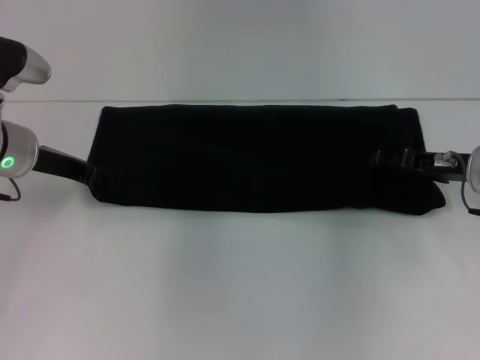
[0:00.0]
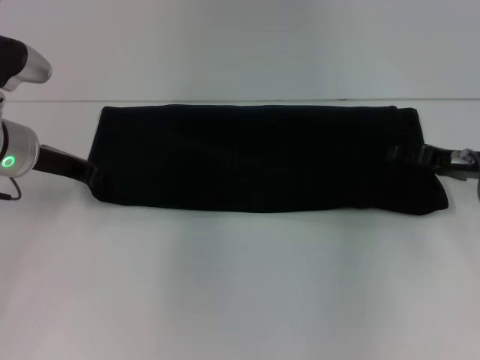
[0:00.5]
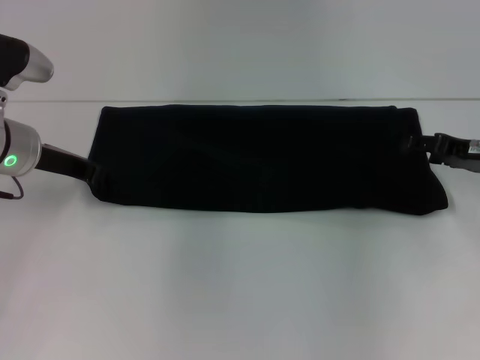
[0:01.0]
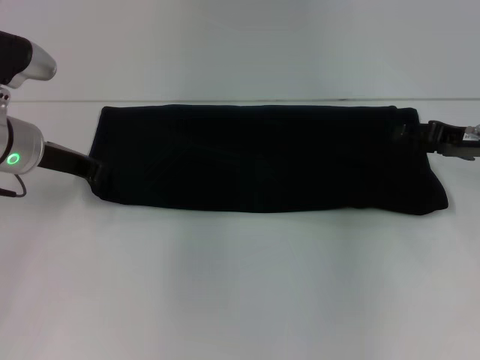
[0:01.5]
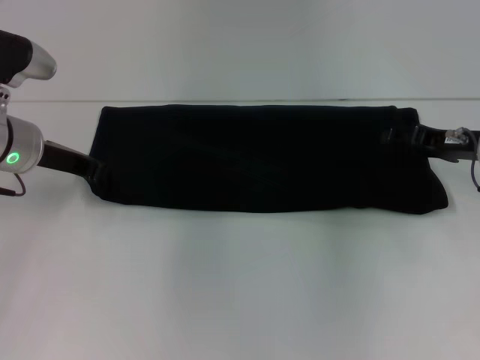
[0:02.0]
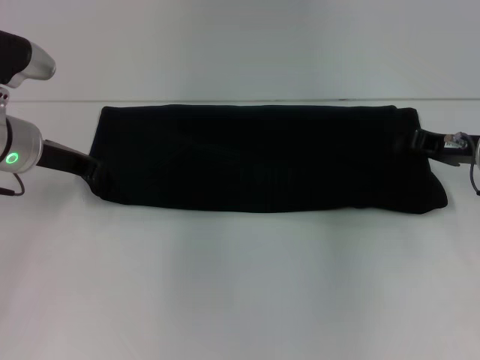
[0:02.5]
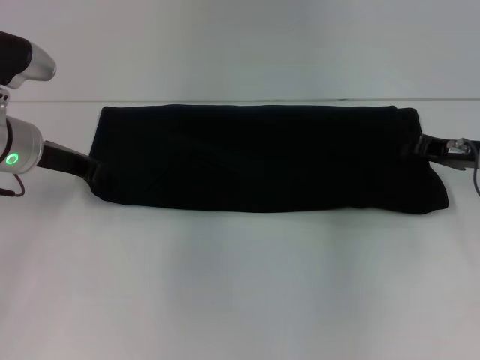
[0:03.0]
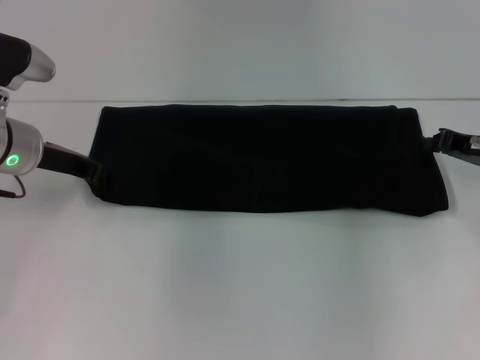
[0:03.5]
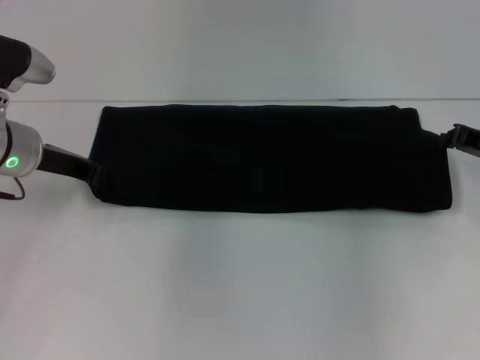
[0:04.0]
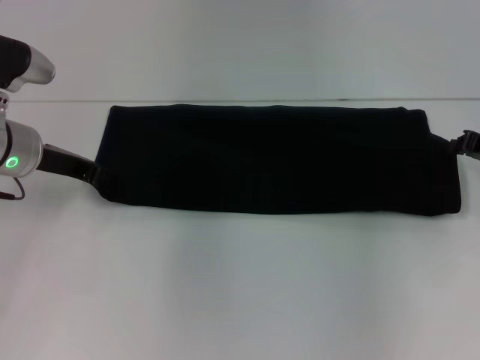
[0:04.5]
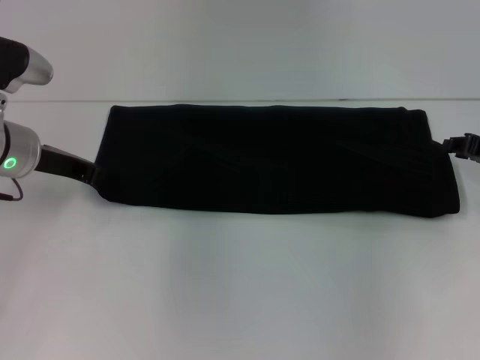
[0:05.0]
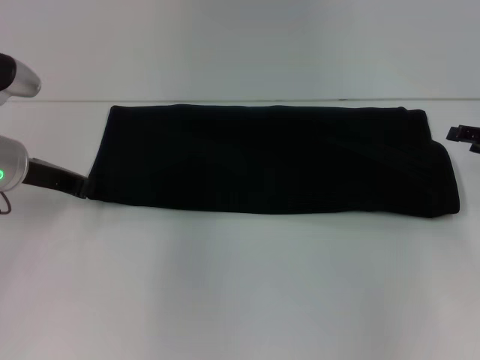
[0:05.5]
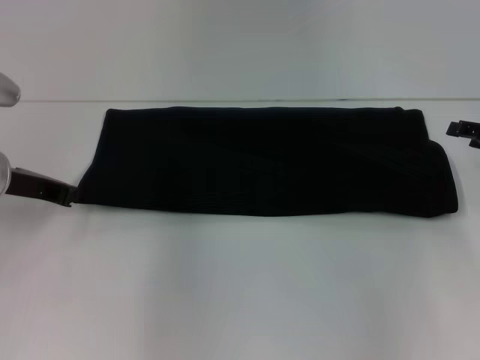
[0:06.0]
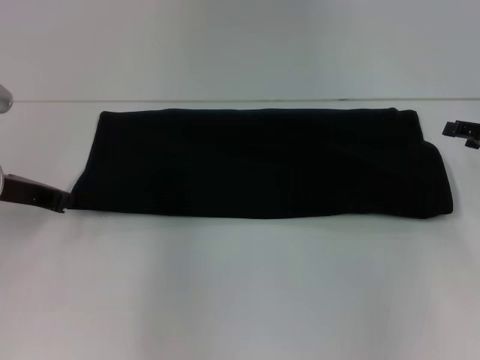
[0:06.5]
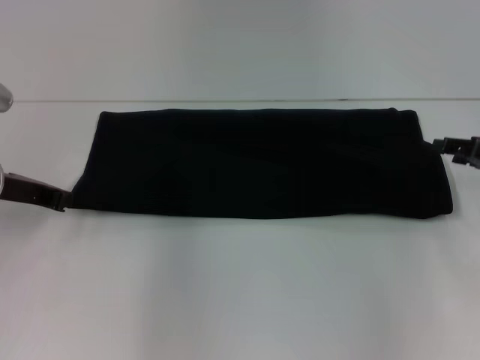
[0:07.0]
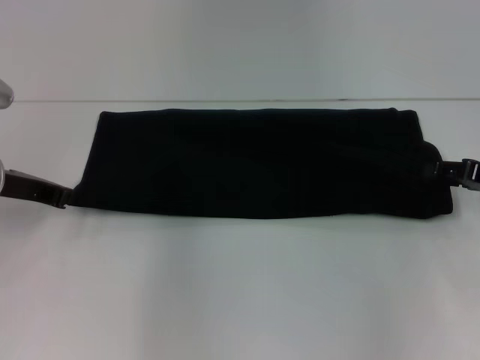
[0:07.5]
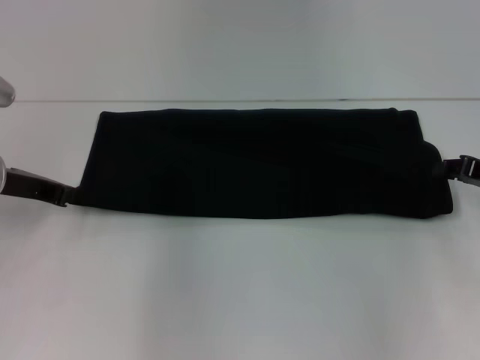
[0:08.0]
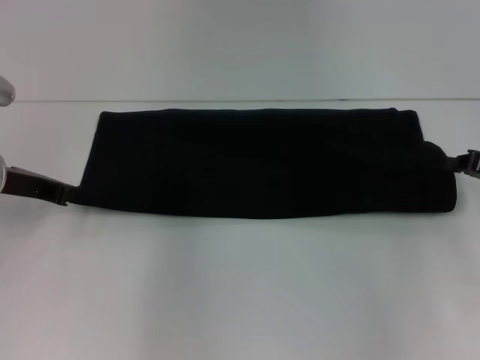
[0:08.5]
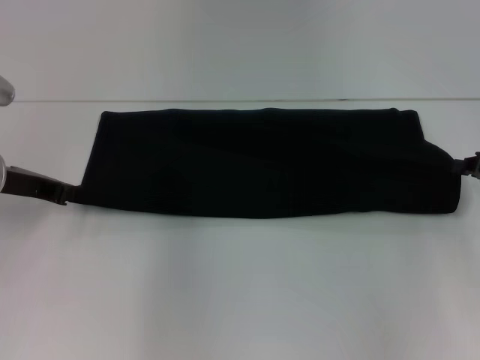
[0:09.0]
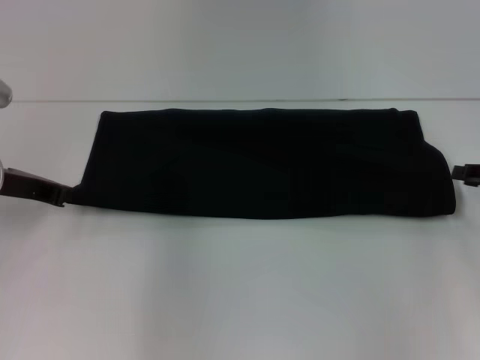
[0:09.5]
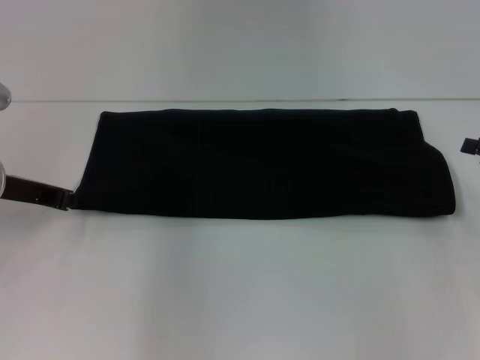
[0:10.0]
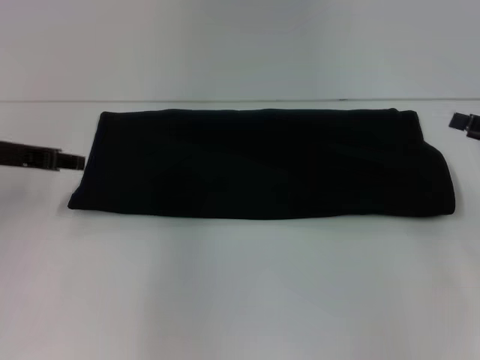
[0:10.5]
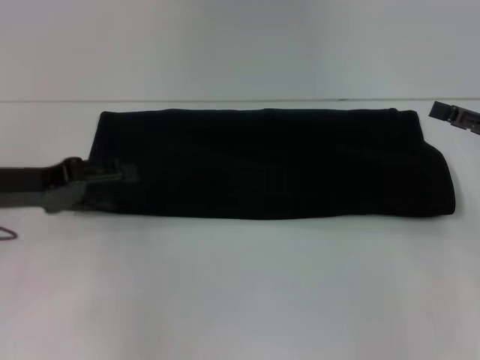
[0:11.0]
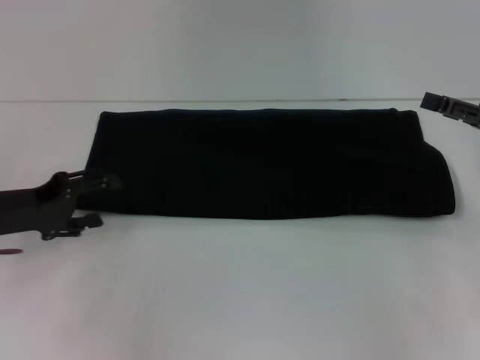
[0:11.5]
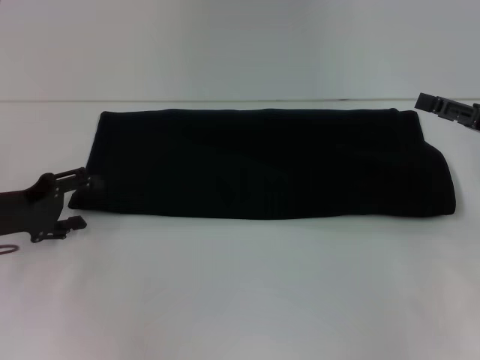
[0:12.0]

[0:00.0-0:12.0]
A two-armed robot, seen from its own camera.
0:00.0 to 0:02.0: The grippers make only small movements.
0:02.0 to 0:04.0: The right gripper closes up.
0:04.0 to 0:06.0: The right gripper opens its fingers.
0:06.0 to 0:08.0: There are only small adjustments of the grippers.
0:08.0 to 0:10.0: The right gripper ends up some 5 cm from where it was, and closes, then opens again.
0:10.0 to 0:12.0: The right gripper opens. The left gripper ends up roughly 5 cm from where it was, and opens its fingers.

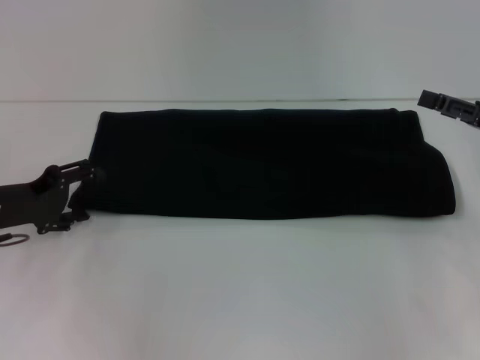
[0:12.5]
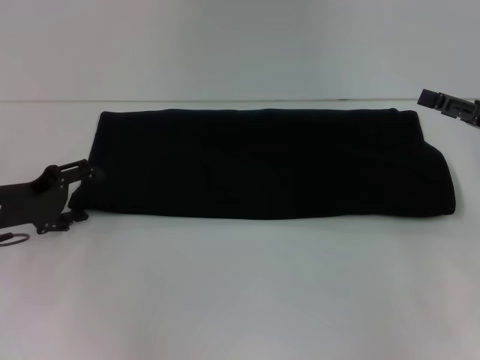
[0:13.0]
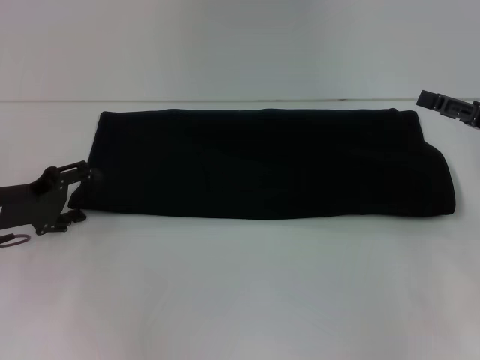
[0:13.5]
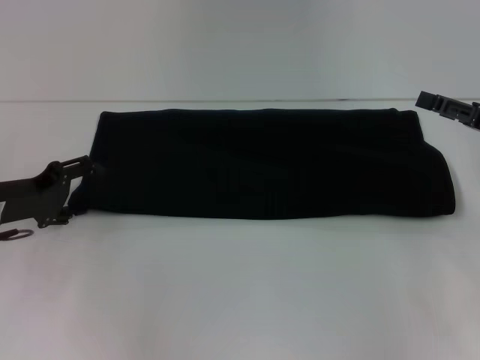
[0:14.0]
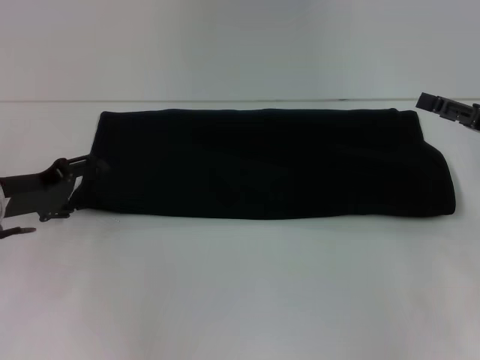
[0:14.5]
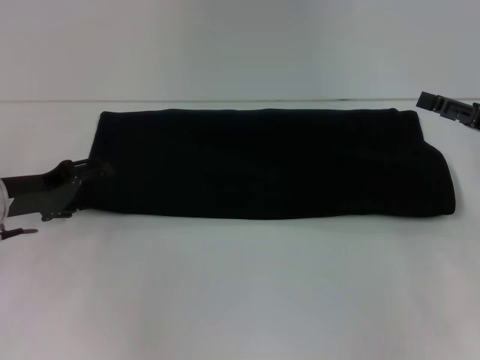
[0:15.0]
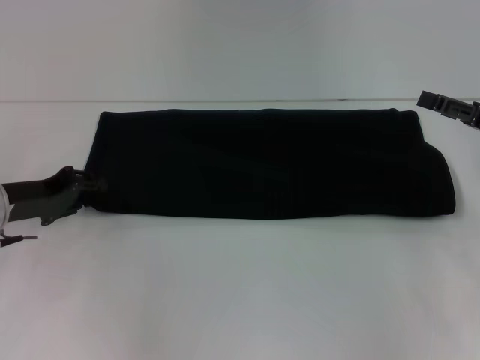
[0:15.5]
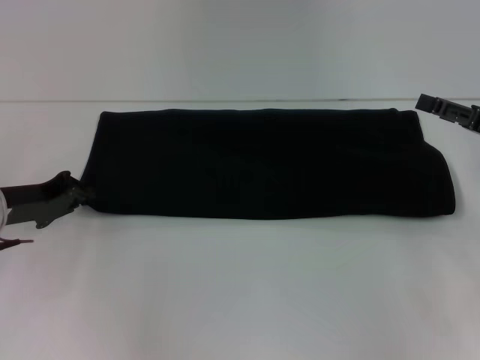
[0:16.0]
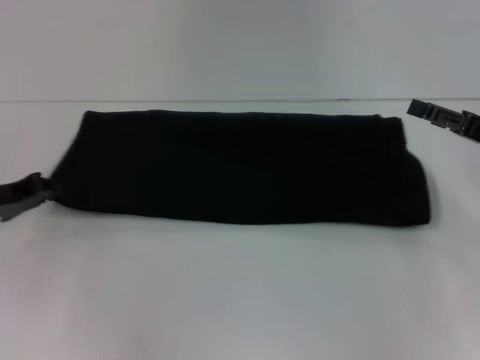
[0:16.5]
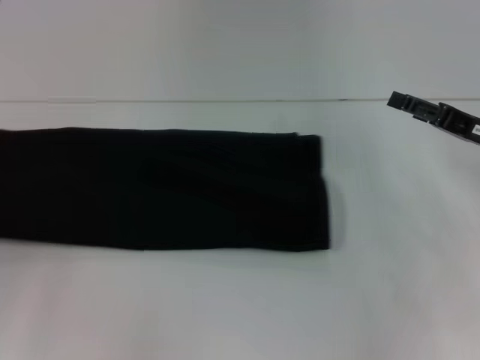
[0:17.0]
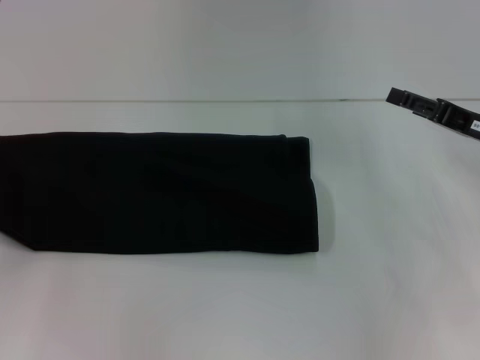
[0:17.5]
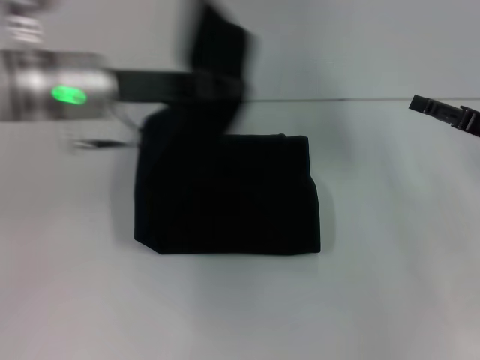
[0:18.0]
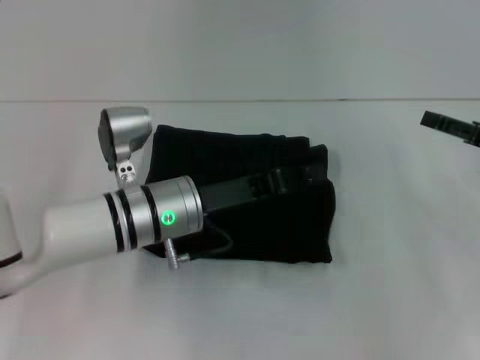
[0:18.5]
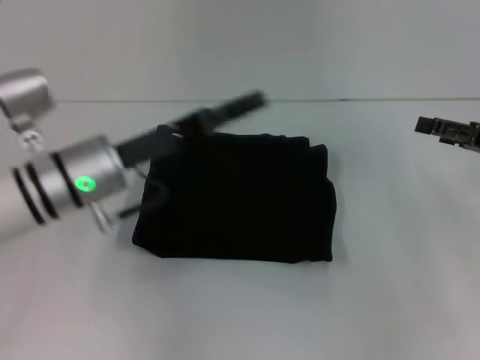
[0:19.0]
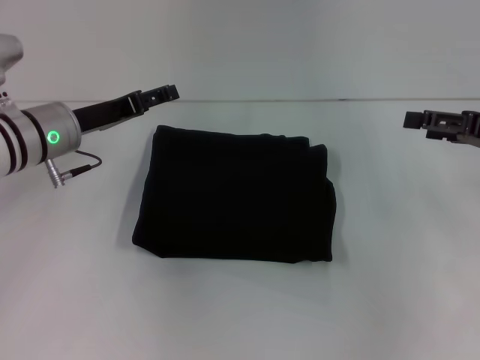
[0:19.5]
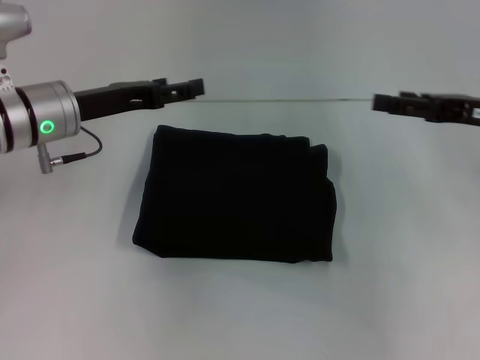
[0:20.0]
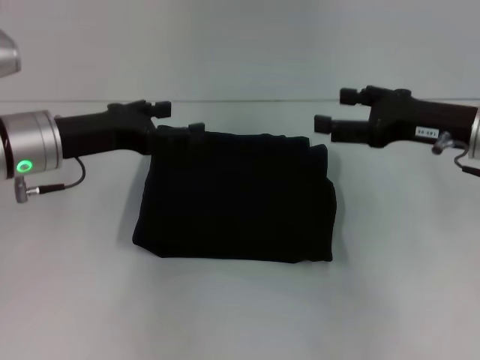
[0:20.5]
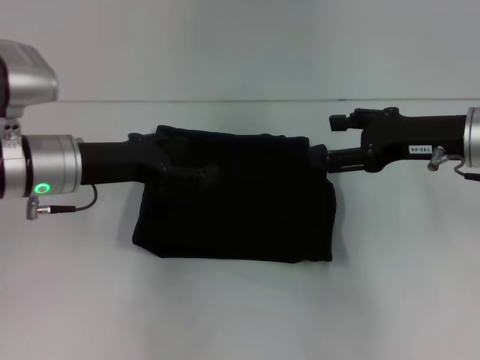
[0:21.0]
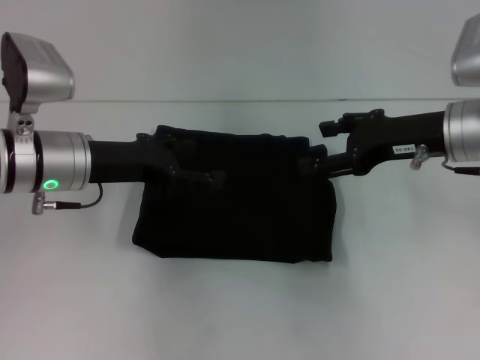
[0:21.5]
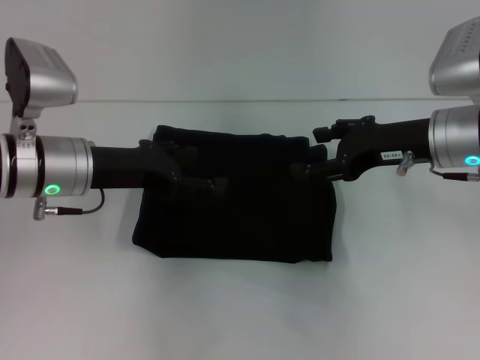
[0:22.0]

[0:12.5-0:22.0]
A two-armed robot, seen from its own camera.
Step, 0:12.5 to 0:18.5: Fold the clothes with your left hand.
0:12.5 to 0:14.5: The grippers move only a little.
0:14.5 to 0:16.5: The left gripper closes up.
0:16.5 to 0:18.0: The left gripper heads to the right and upward, covering approximately 20 cm.
0:18.0 to 0:20.0: The left gripper opens. Meanwhile the right gripper changes place by about 5 cm.
0:20.0 to 0:22.0: The right gripper heads to the left, covering approximately 10 cm.

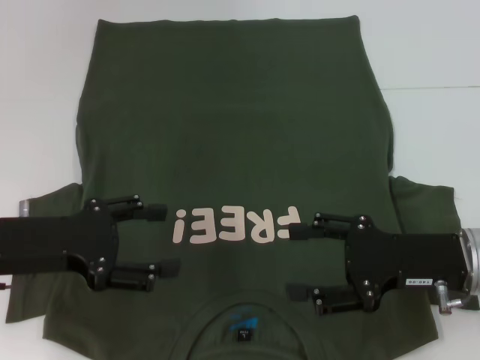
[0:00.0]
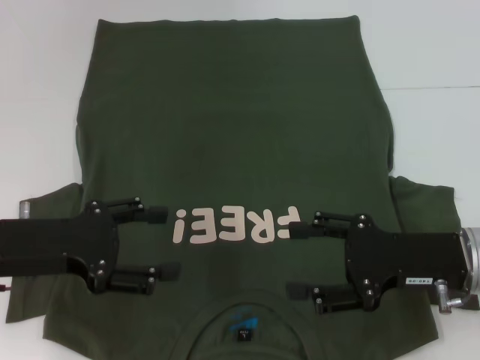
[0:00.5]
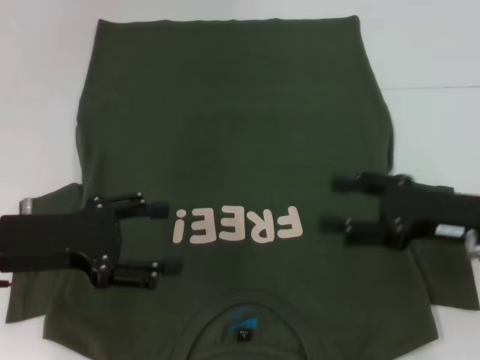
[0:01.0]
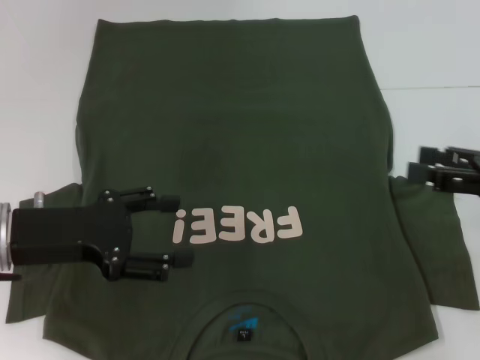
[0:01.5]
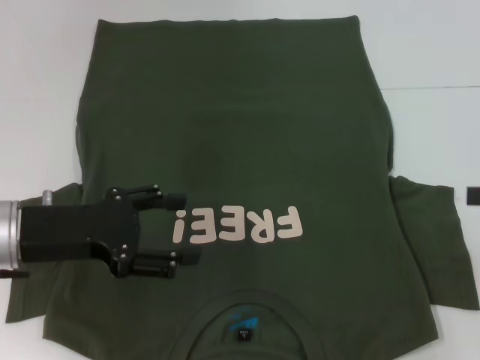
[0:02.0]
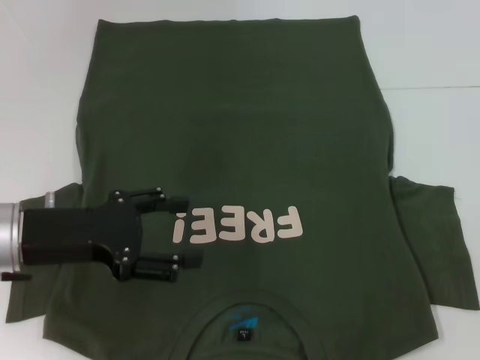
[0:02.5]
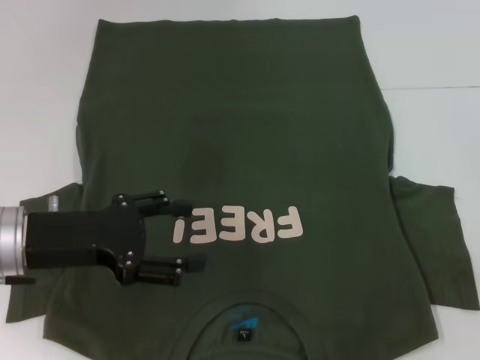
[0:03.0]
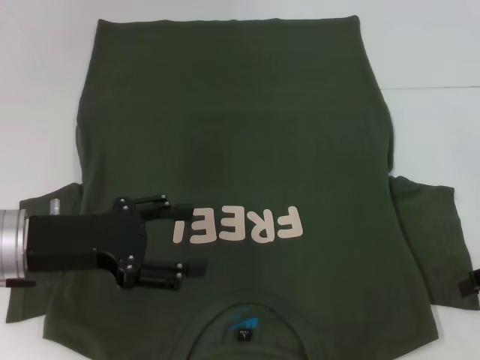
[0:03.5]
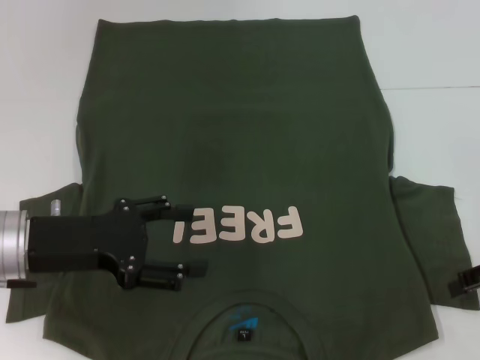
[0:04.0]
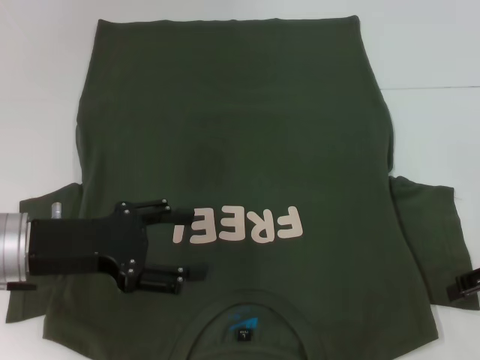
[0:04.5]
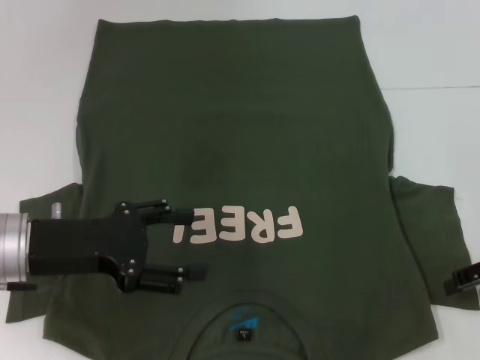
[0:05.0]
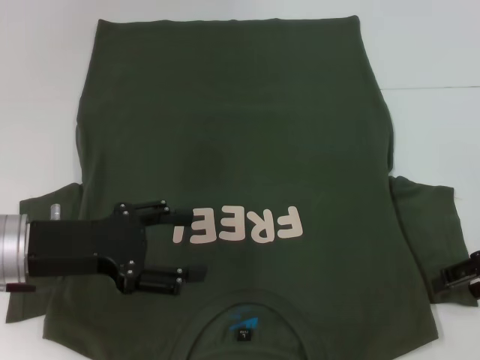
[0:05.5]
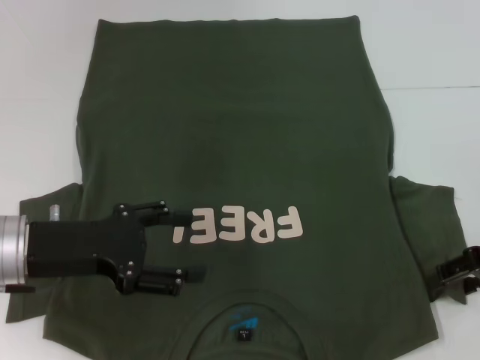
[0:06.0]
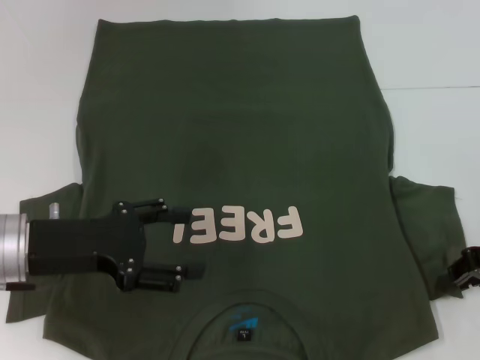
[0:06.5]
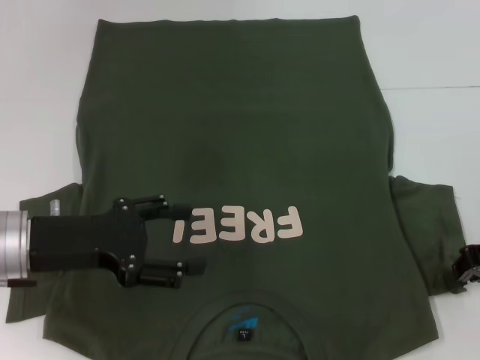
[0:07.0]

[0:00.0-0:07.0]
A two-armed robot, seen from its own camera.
0:00.0 to 0:02.0: The right gripper goes some 15 cm to the right and upward.
0:03.5 to 0:05.0: The grippers make only small movements.
0:05.0 to 0:07.0: The right gripper closes its fingers.
